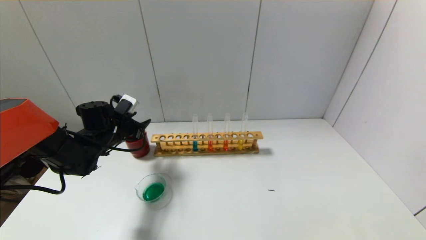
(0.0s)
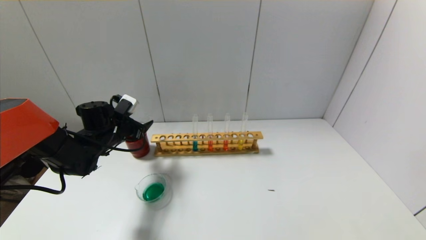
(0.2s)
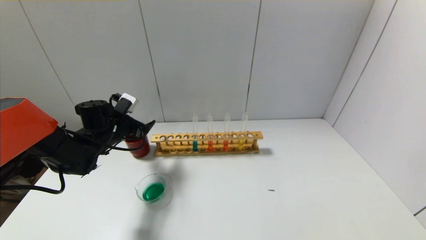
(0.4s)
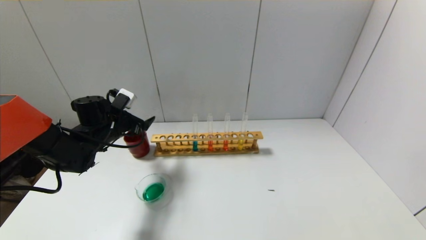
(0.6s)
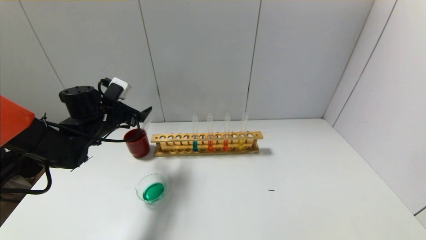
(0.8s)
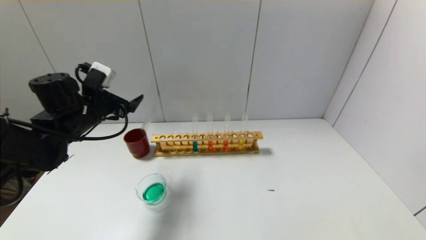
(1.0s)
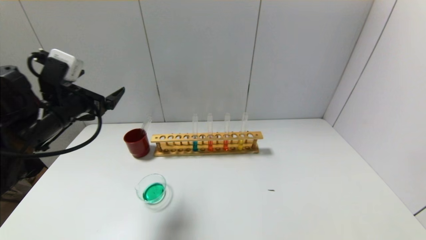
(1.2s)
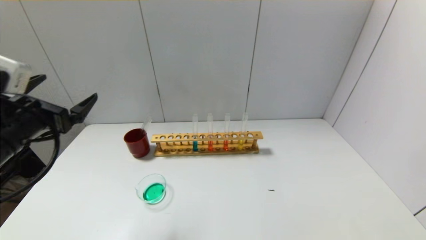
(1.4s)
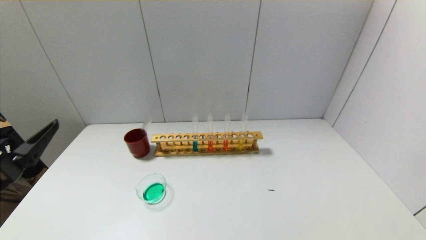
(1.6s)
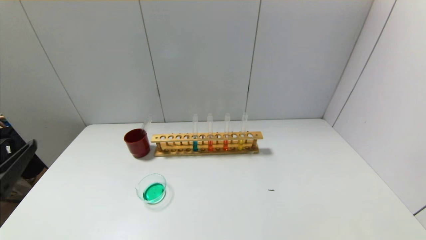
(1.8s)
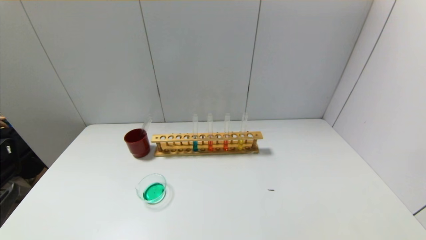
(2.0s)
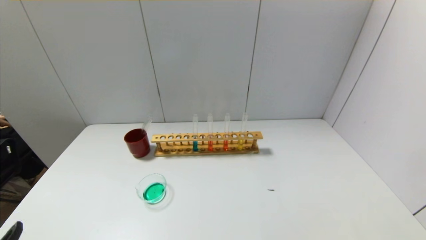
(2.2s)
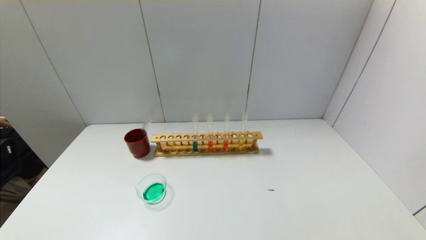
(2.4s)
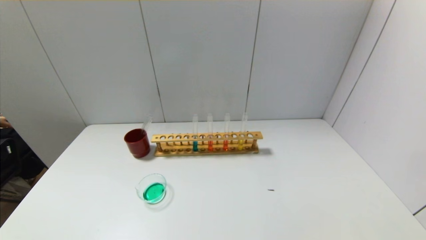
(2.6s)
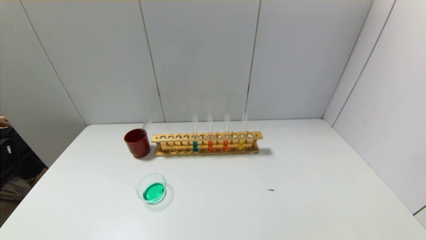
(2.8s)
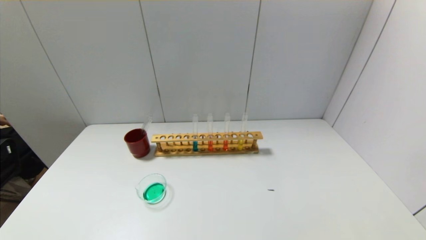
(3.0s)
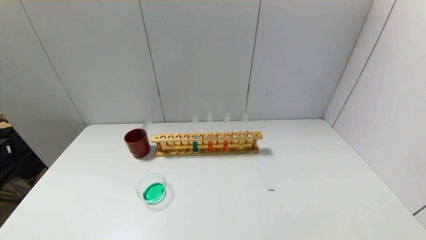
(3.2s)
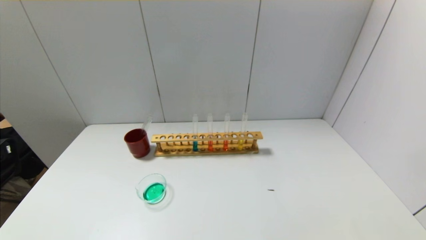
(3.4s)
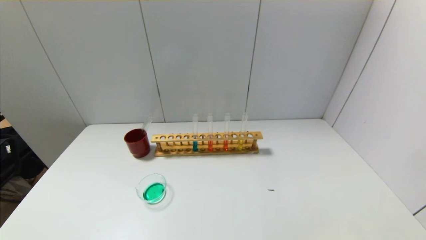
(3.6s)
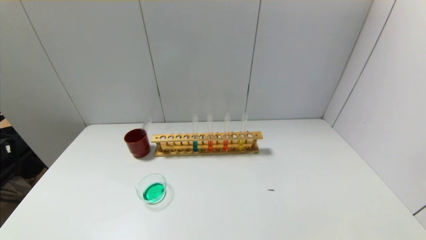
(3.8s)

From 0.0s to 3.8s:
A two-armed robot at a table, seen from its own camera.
From 0.0s to 1.2s: The left gripper goes some 20 cm backward and upward, and opens.
From 1.2s to 2.6s: The left gripper heads backward and downward, covering about 30 cm.

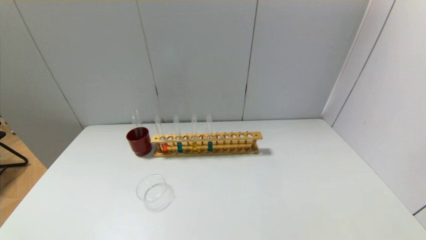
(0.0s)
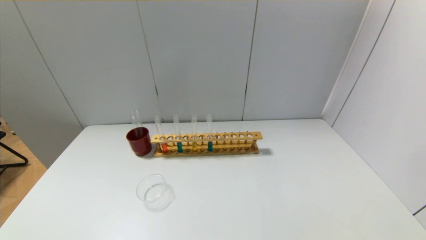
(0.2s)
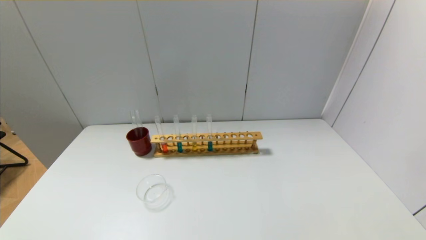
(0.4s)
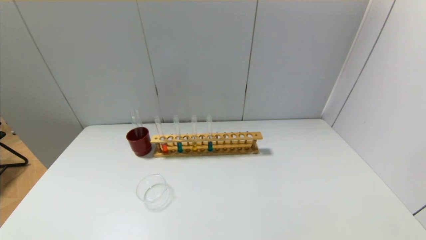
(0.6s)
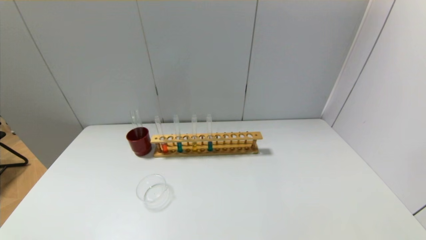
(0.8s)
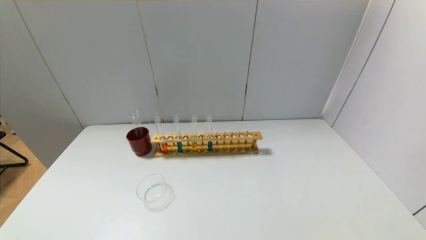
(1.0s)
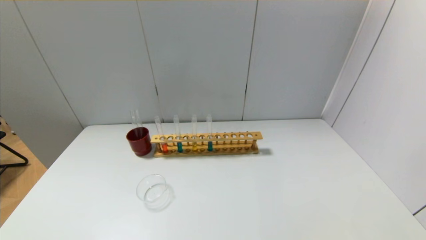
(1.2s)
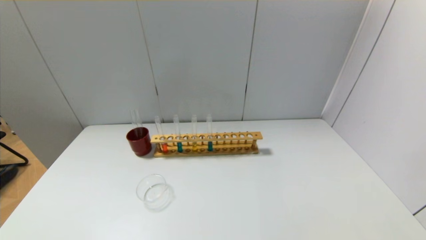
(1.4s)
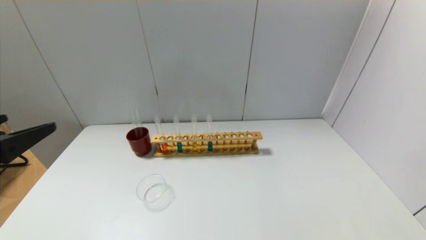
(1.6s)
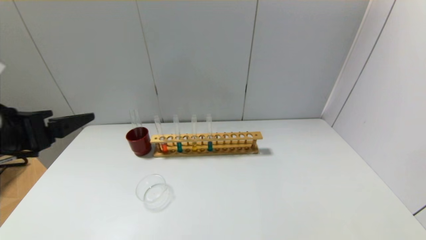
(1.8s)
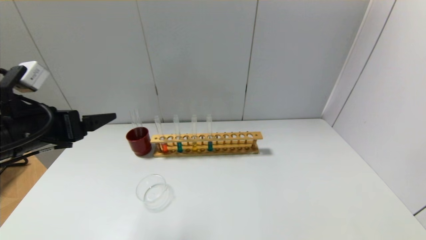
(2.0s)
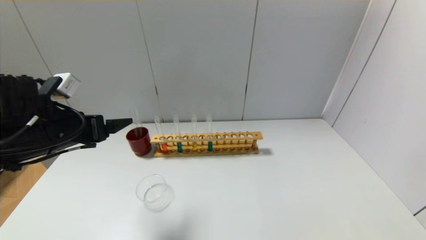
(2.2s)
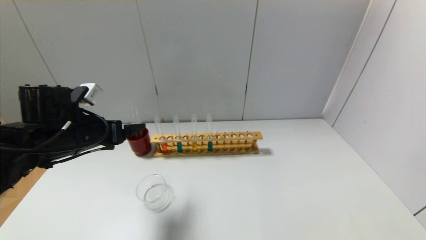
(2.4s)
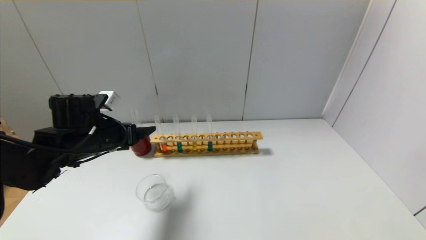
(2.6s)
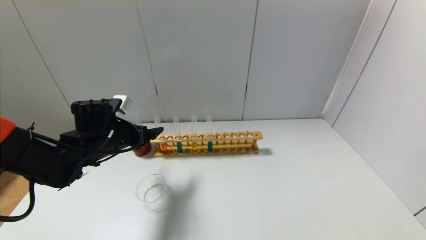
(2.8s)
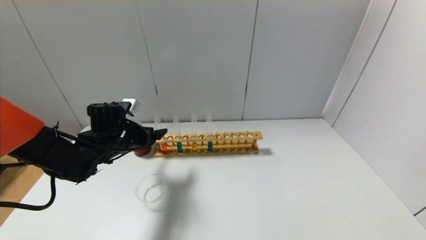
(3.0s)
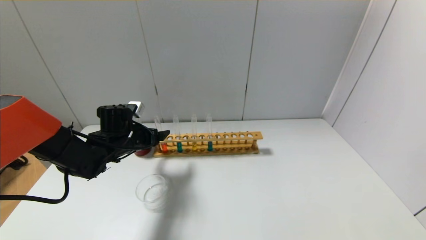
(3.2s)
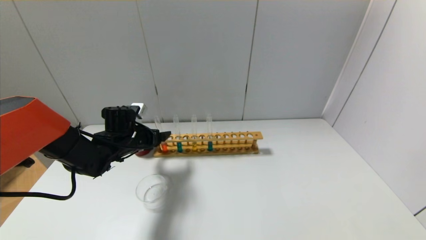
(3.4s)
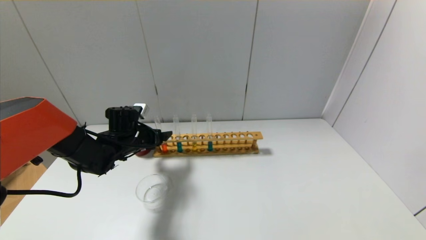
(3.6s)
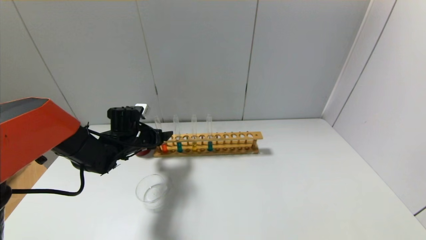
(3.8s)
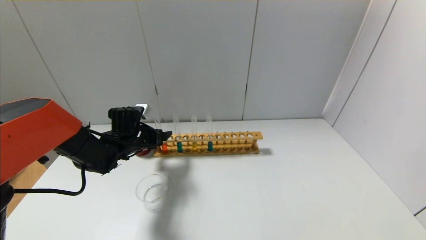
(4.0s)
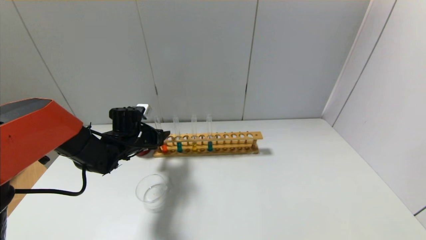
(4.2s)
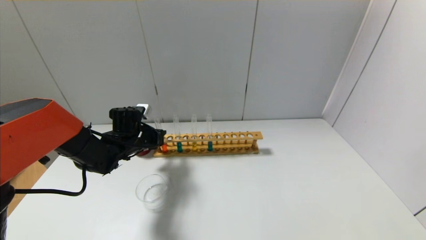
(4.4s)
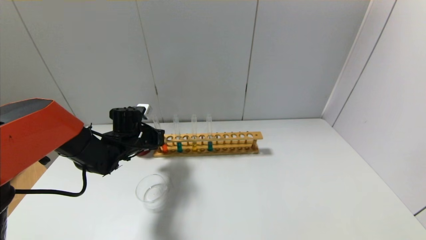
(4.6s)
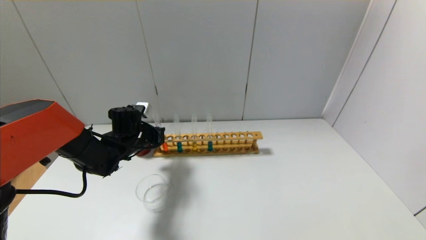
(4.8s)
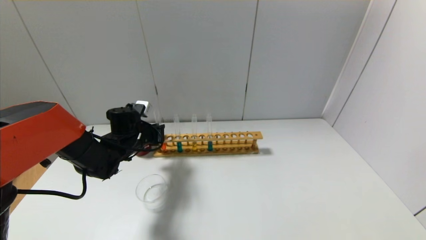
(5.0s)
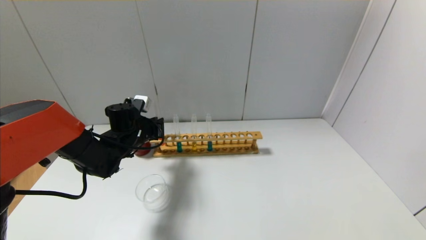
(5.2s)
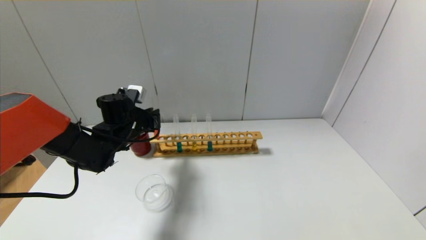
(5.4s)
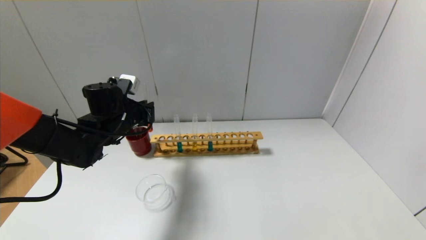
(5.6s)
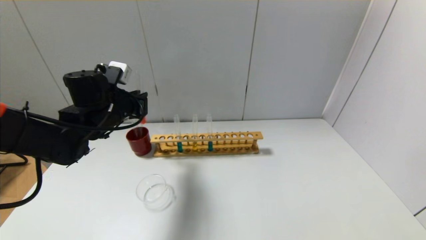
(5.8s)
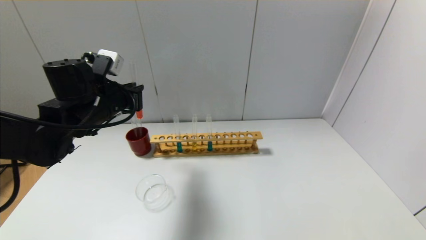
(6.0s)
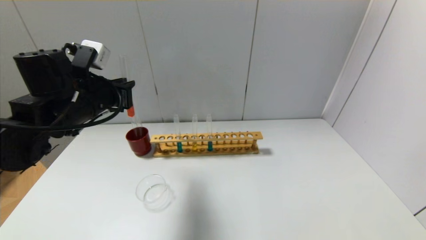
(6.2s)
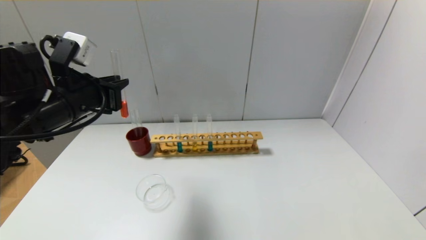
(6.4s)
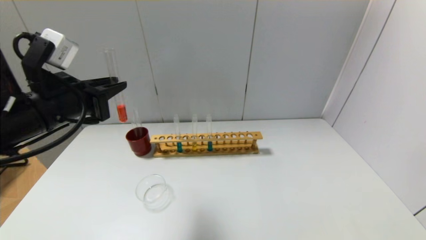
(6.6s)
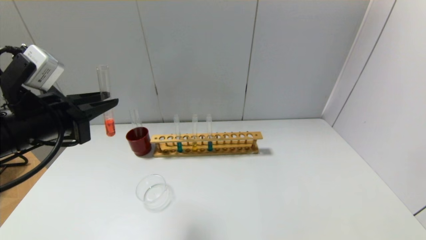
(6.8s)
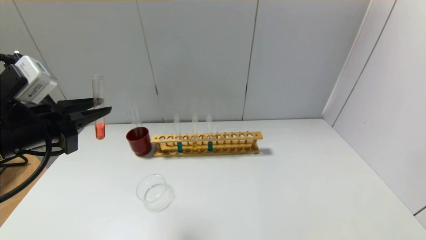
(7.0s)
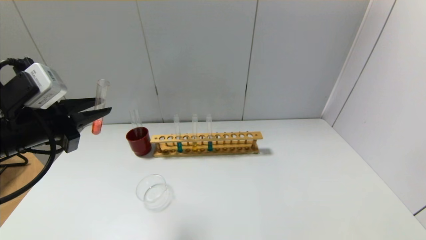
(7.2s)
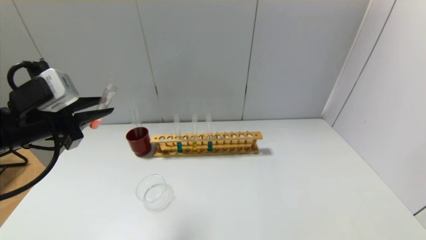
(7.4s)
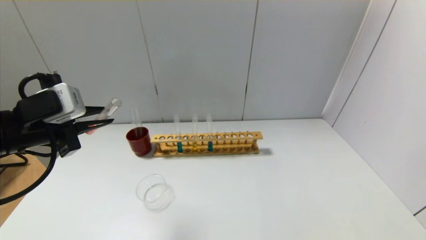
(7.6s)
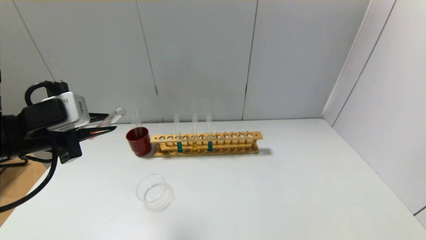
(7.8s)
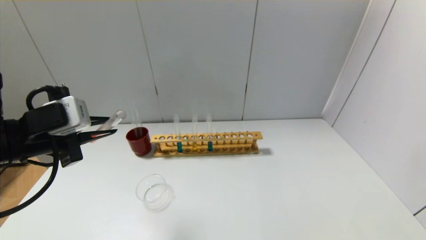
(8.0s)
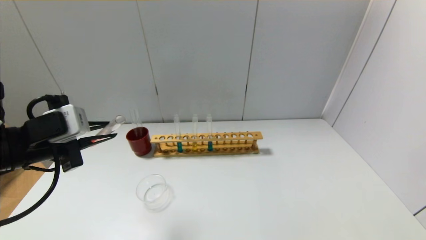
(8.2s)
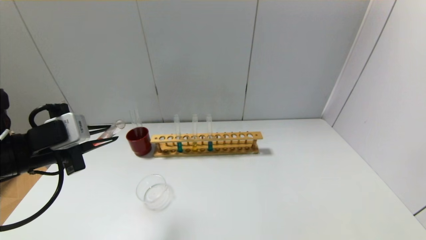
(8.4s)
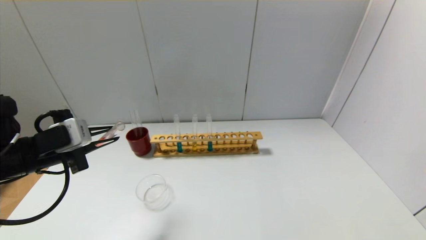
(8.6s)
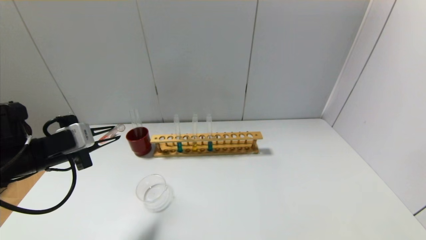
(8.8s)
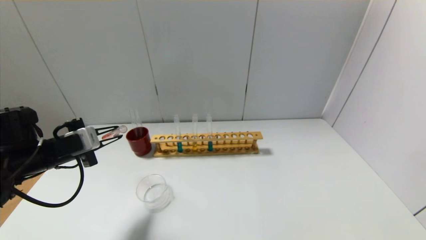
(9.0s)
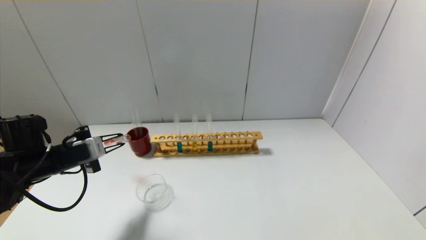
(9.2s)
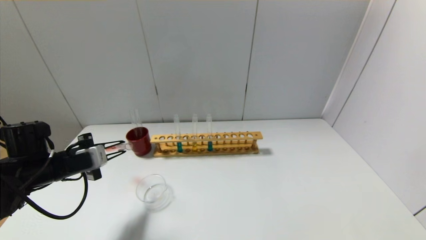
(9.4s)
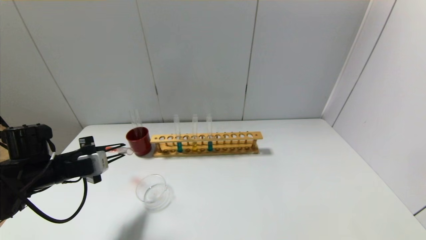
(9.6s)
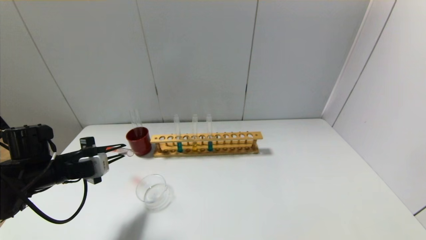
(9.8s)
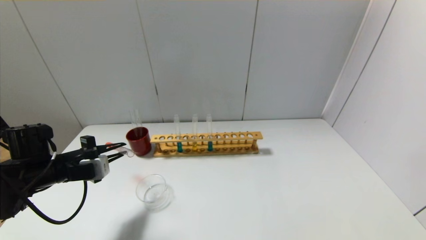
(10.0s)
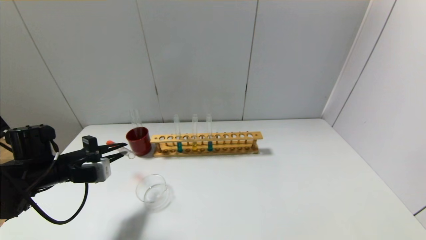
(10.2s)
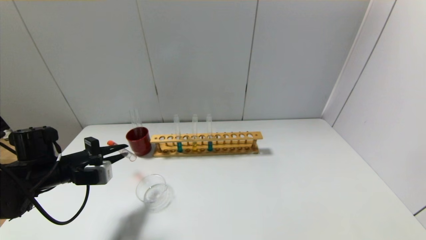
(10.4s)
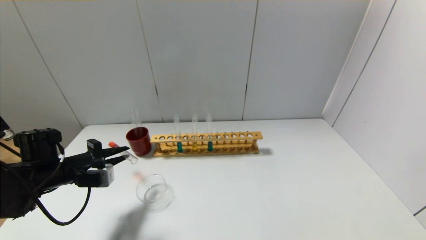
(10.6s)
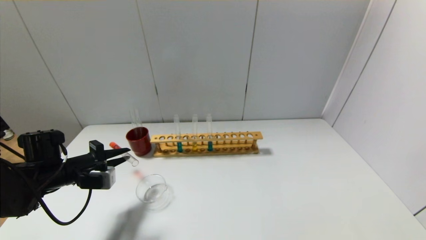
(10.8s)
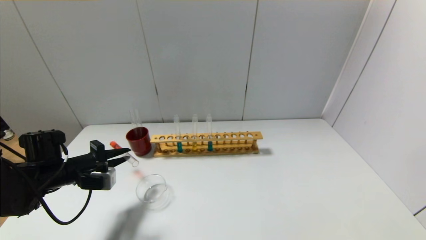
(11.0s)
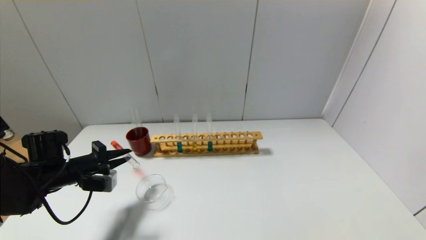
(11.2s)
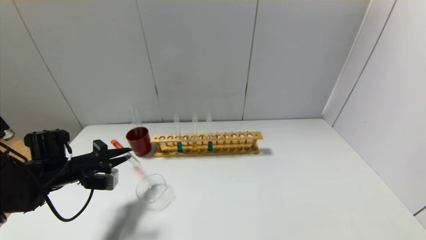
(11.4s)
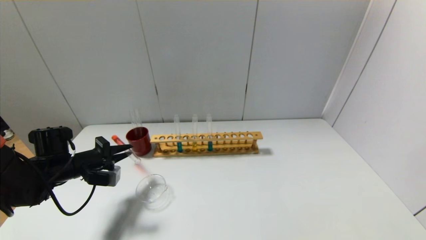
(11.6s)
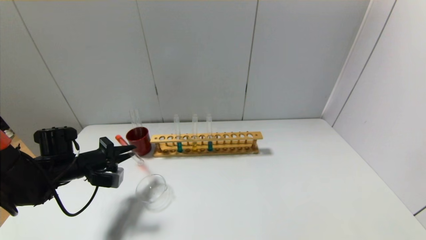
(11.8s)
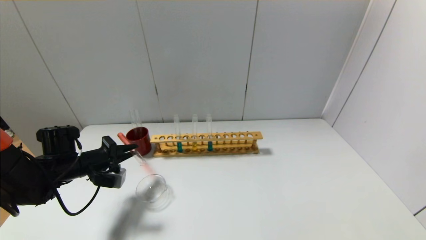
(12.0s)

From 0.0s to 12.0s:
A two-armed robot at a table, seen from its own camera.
Step, from 0.0s to 4.6s: Grasp the red reagent with the left gripper.
From 0.0s to 1.6s: The left gripper heads upward and forward, covering some 25 cm.
From 1.6s to 3.0s: The left gripper heads forward and downward, covering some 30 cm.
From 3.0s to 4.4s: The left gripper changes place by approximately 5 cm, and closes up.
From 4.4s to 6.0s: The left gripper moves upward and backward, about 15 cm.
From 6.0s to 7.6s: The left gripper moves backward and to the left, some 10 cm.
From 7.6s to 9.0s: The left gripper travels downward and forward by some 10 cm.
From 9.0s to 10.4s: The left gripper moves downward, some 5 cm.
From 10.4s to 12.0s: The grippers make only small movements.

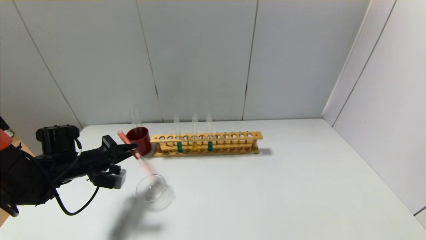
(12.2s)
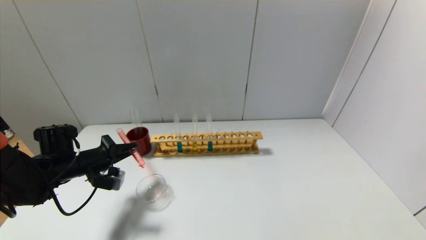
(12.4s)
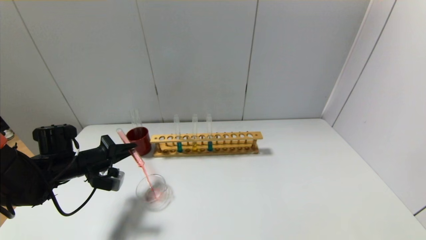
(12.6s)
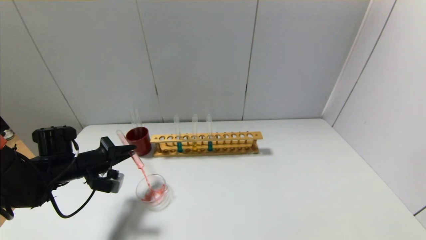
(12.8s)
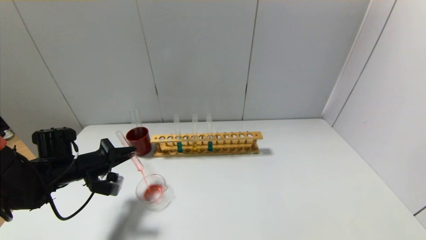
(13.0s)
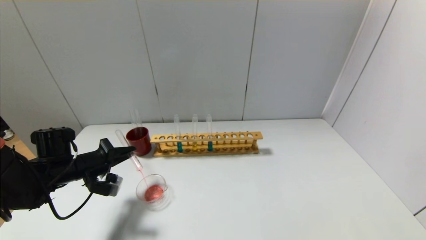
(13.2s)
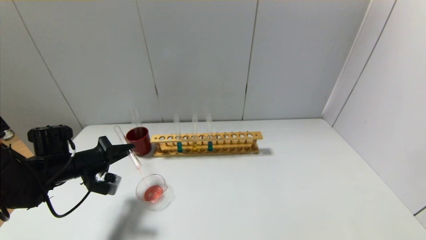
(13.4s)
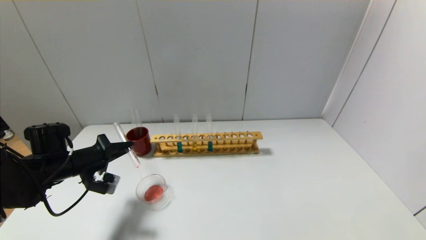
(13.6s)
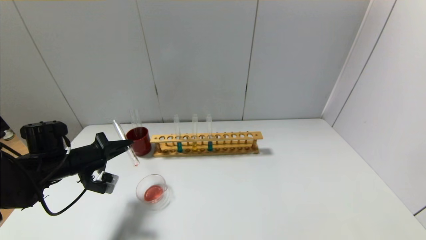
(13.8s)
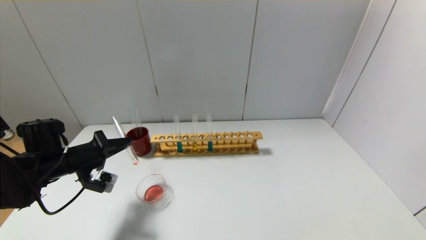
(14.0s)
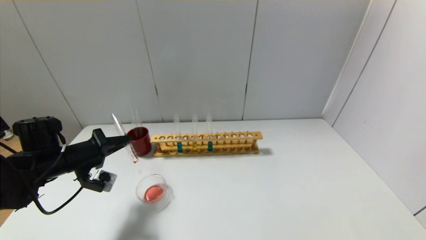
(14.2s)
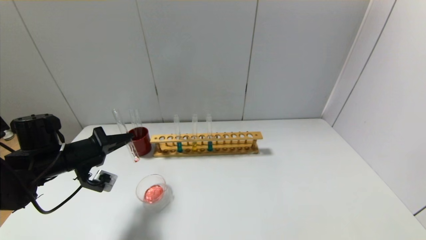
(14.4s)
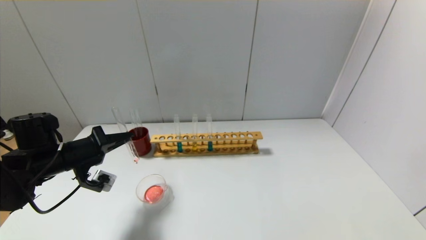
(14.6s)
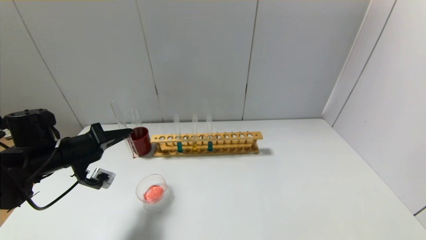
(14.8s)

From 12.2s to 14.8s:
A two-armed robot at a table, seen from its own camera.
From 12.2s to 13.4s: There are only small adjustments of the grippers.
From 13.4s to 14.8s: The left gripper goes roughly 5 cm upward.
